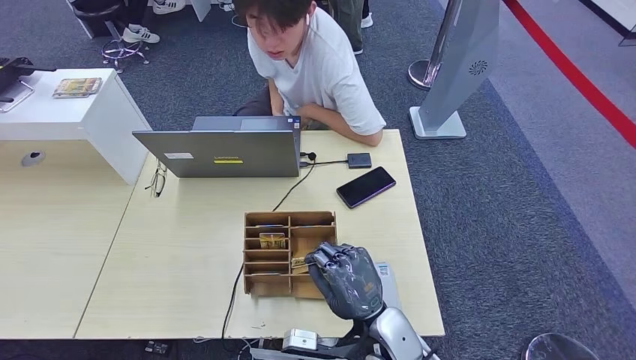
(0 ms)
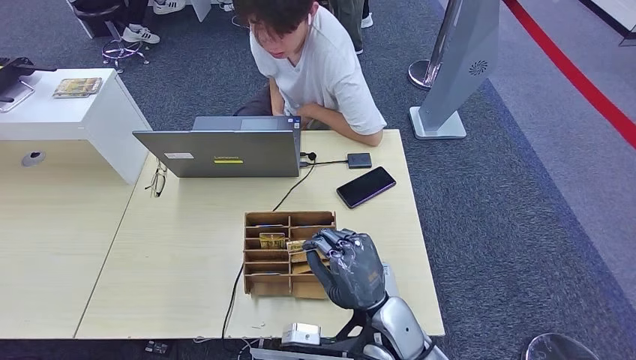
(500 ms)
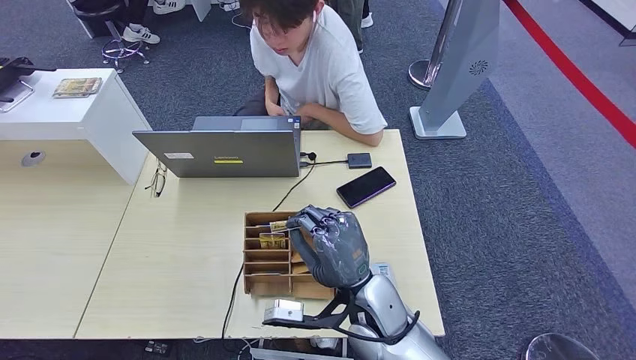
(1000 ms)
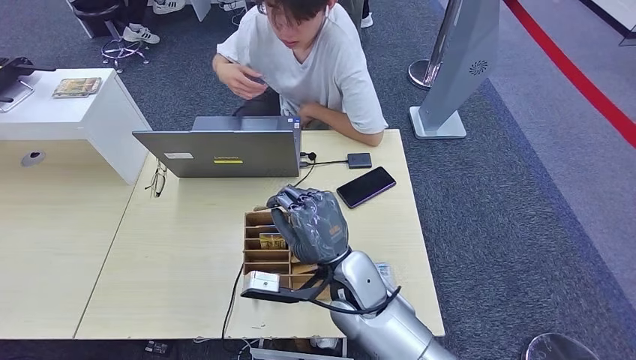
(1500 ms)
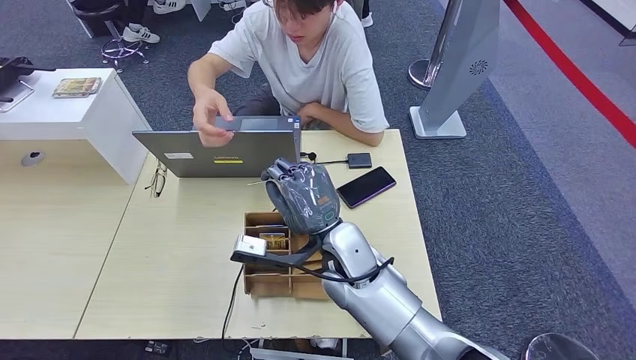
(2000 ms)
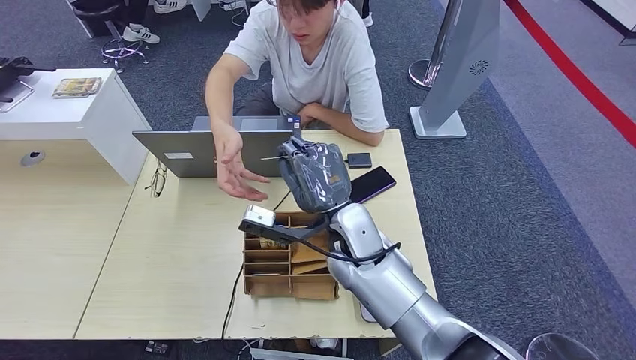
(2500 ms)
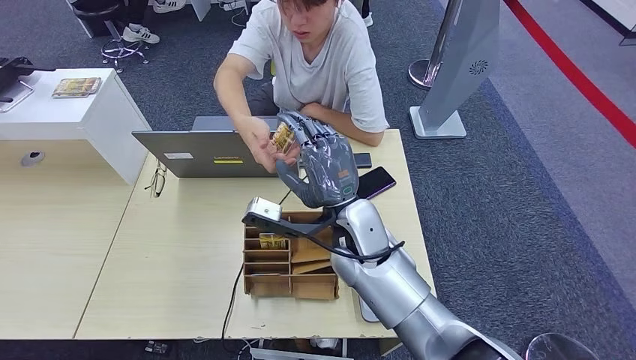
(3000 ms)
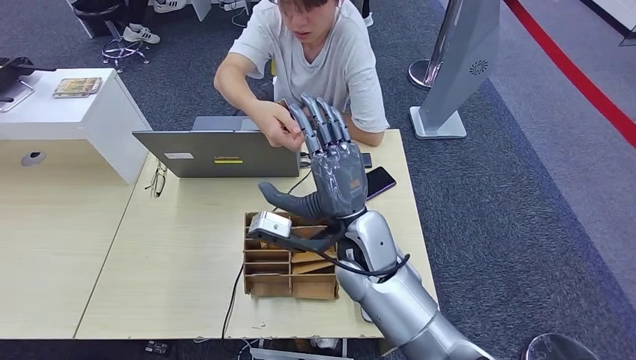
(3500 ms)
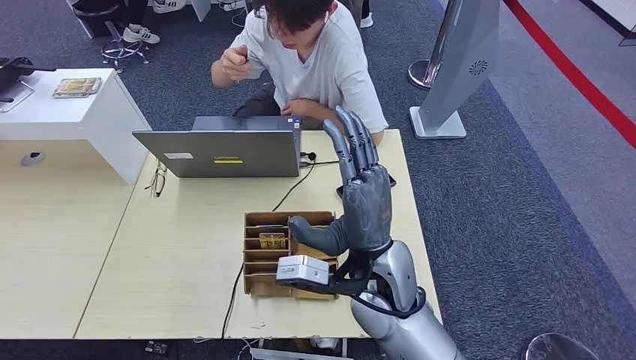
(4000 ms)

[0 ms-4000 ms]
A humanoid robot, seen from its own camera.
Step, 1500 ms to 4000 ms: Hand the room key to the person.
0 ms to 2000 ms: The right hand shifts roughly 15 cm forward, upward and to the left; the left hand ends up approximately 5 cm from where it was.
2000 ms to 4000 ms: The right hand goes approximately 5 cm backward.
